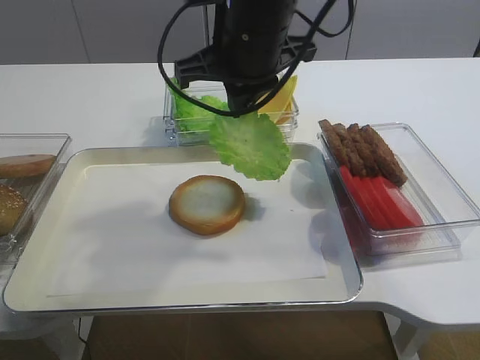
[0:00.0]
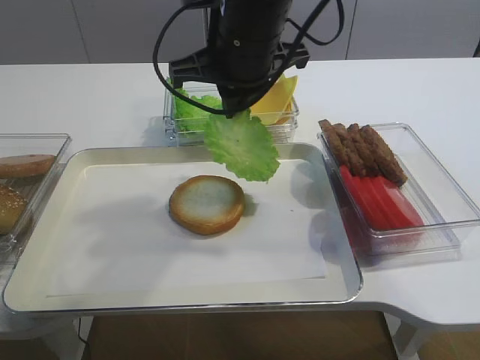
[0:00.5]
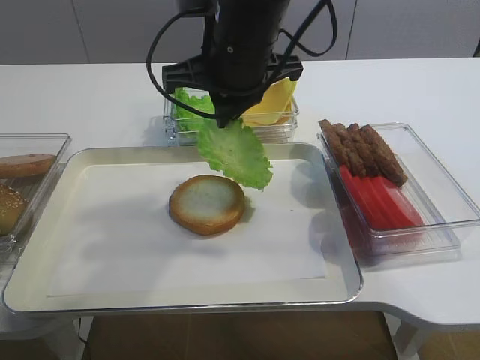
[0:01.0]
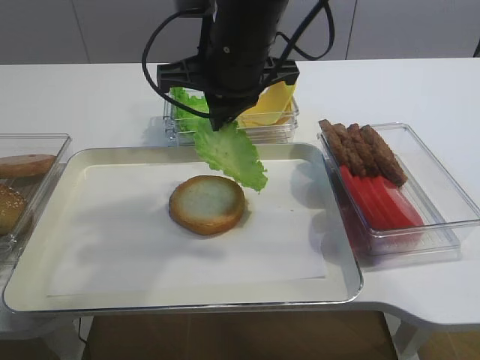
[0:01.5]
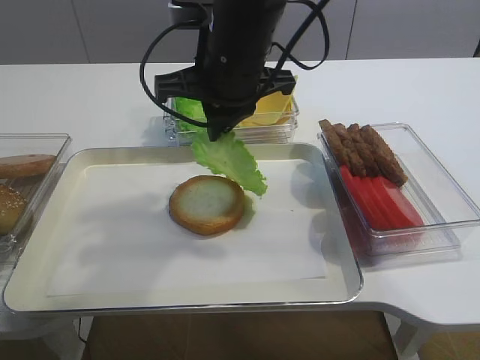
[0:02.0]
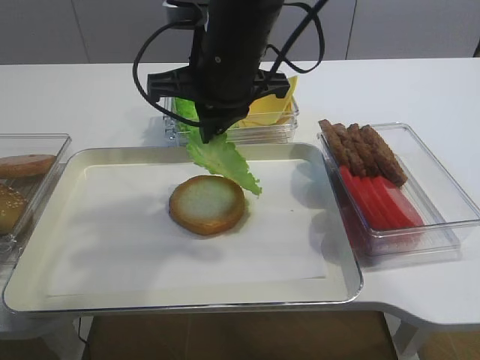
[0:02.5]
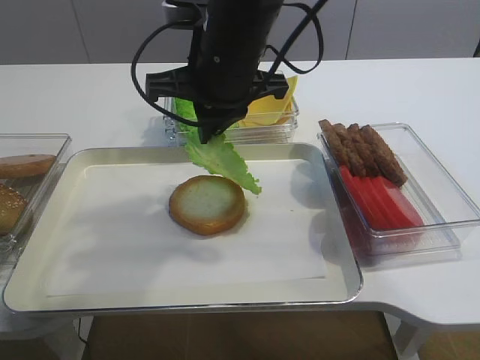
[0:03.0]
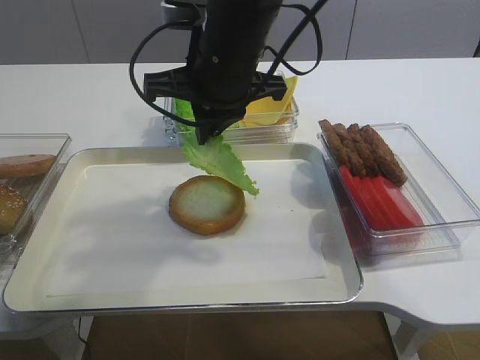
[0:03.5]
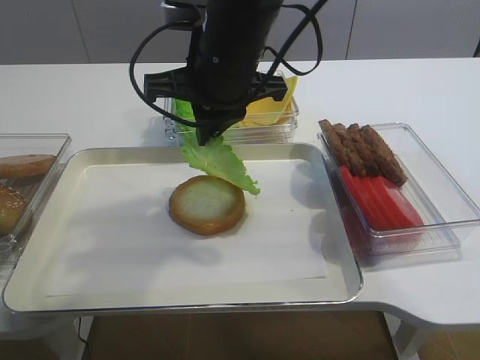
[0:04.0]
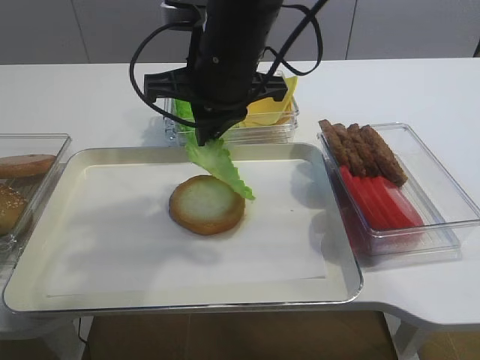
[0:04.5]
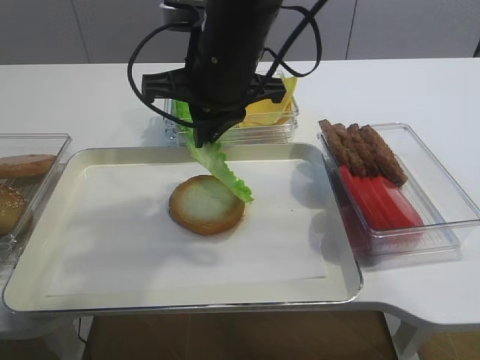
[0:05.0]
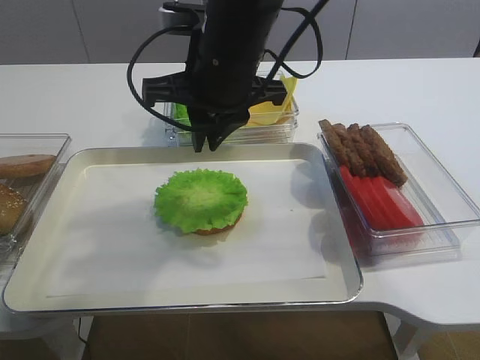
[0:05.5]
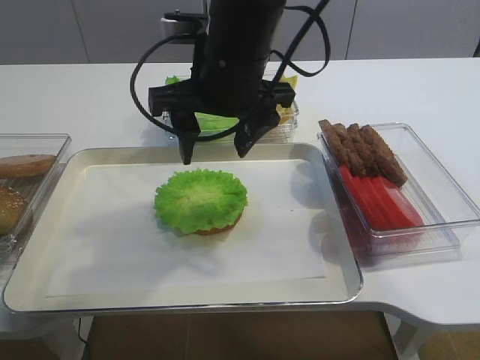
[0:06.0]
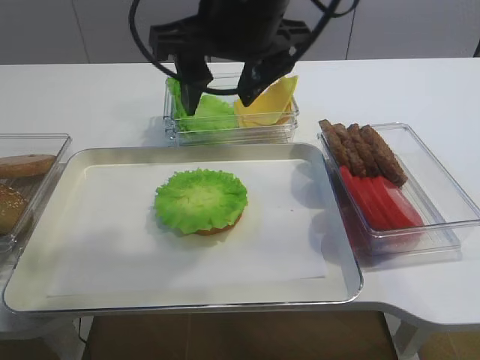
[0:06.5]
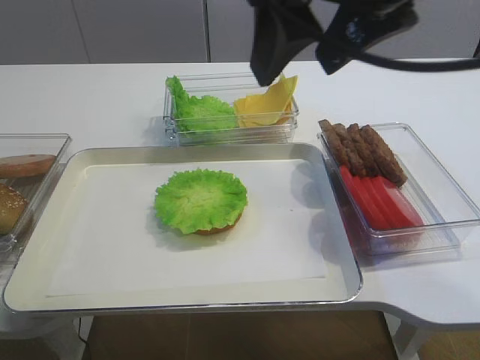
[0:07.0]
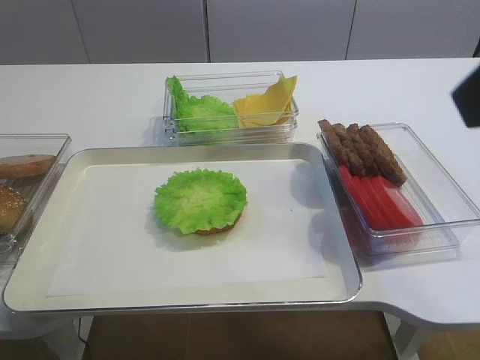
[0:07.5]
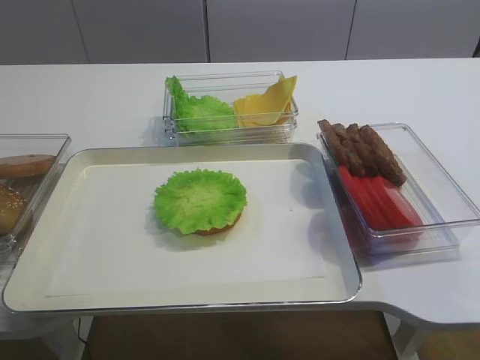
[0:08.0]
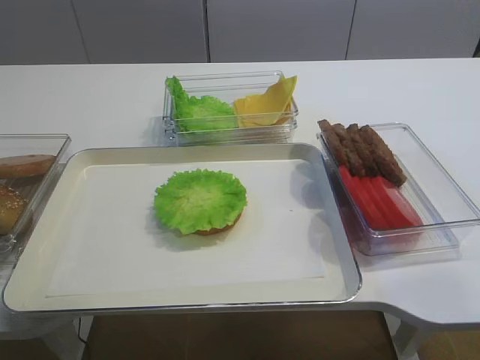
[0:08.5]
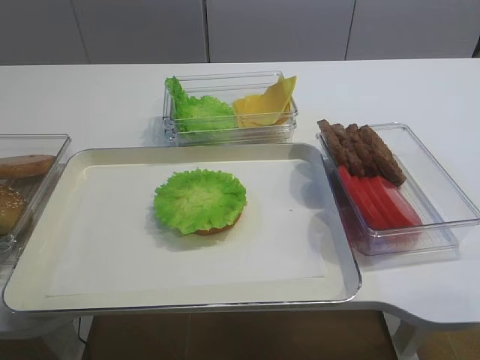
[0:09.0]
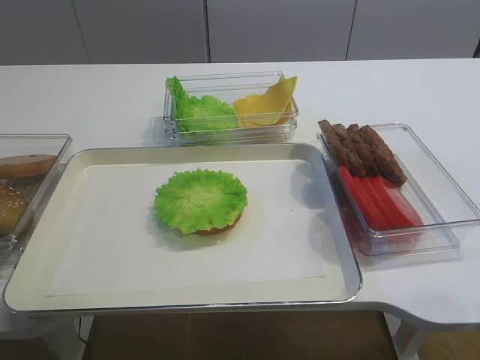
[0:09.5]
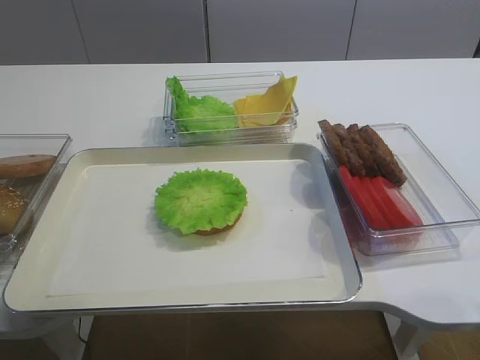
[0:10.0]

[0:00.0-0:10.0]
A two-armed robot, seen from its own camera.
Step, 0:00.0 to 0:06.0: Place the lettuce leaf on the bread slice with the right gripper.
0:00.0 to 0:02.0: The grippers stay close to where they were, moving slightly.
0:02.0 to 0:04.0: Neither gripper changes place.
0:04.0 to 0:06.0: The right gripper opens up.
0:06.0 to 0:08.0: The right gripper heads to the right and backward, covering about 35 cm.
0:08.0 to 0:10.0: The right gripper moves downward, roughly 10 cm.
